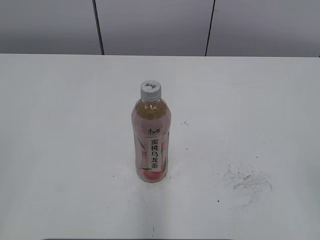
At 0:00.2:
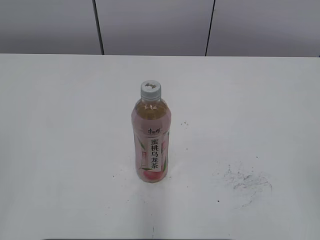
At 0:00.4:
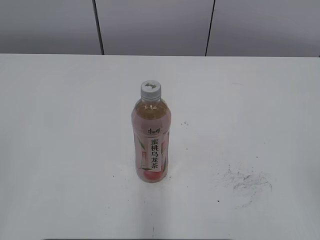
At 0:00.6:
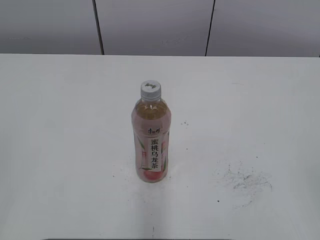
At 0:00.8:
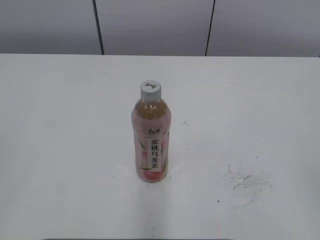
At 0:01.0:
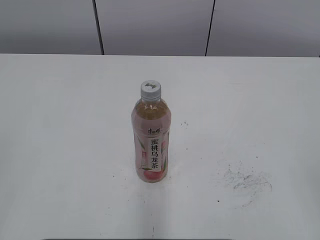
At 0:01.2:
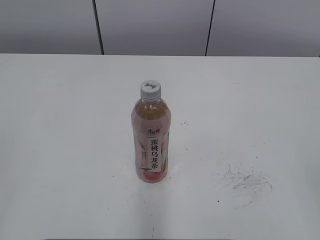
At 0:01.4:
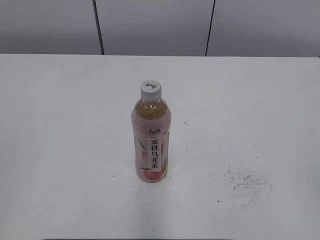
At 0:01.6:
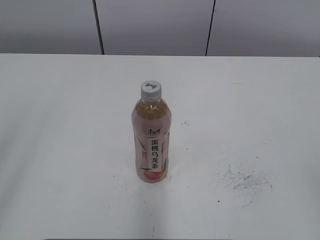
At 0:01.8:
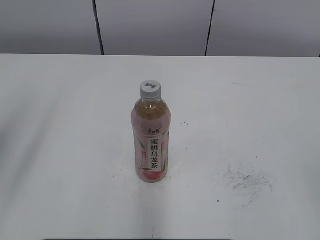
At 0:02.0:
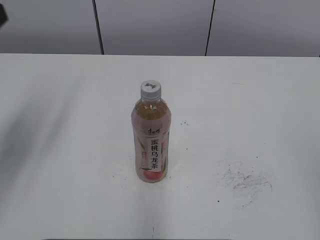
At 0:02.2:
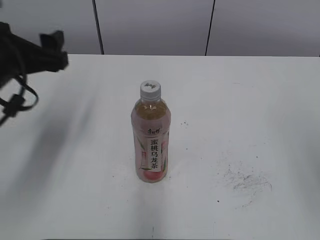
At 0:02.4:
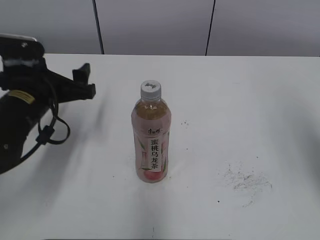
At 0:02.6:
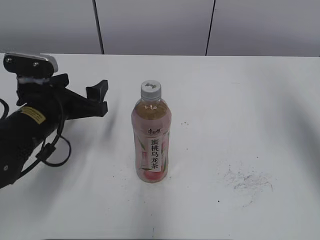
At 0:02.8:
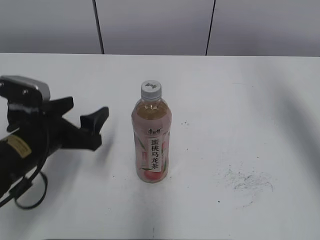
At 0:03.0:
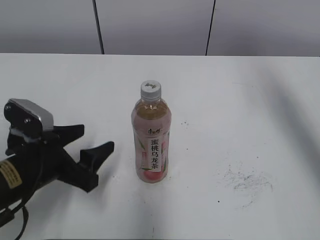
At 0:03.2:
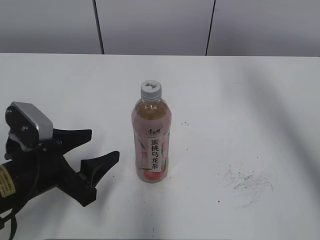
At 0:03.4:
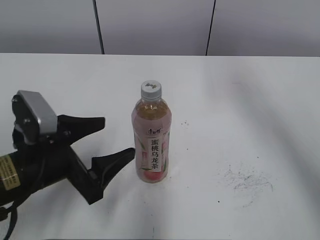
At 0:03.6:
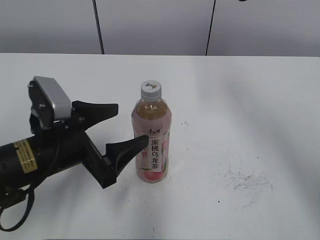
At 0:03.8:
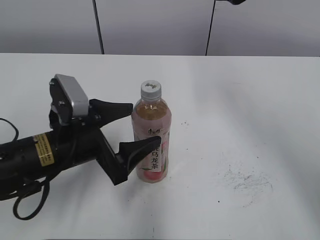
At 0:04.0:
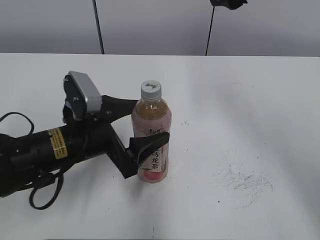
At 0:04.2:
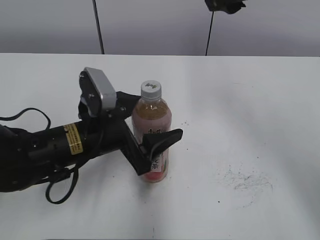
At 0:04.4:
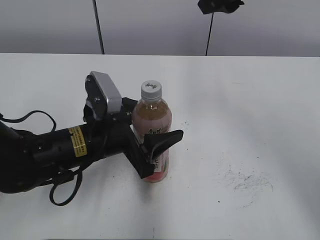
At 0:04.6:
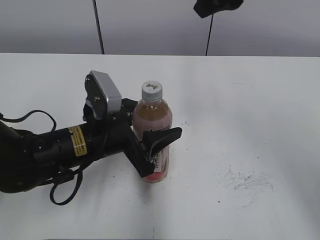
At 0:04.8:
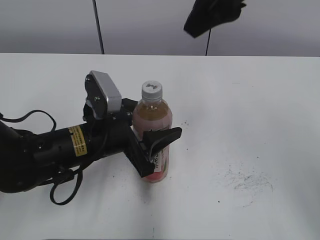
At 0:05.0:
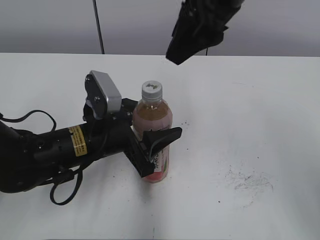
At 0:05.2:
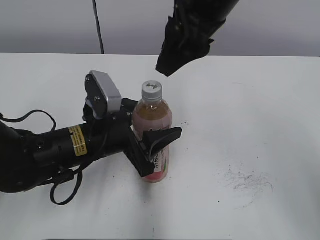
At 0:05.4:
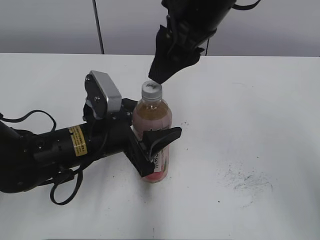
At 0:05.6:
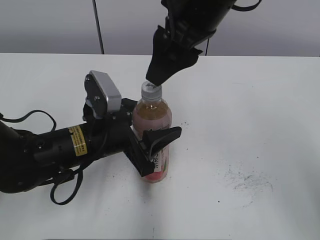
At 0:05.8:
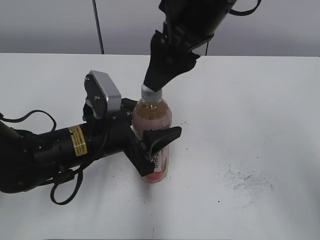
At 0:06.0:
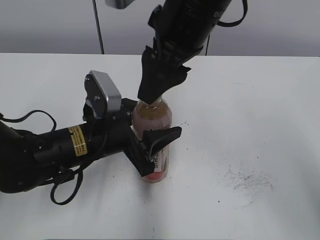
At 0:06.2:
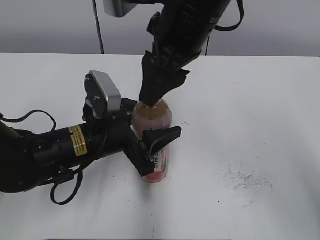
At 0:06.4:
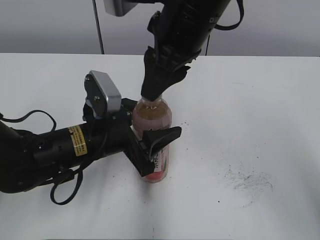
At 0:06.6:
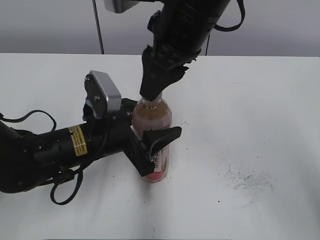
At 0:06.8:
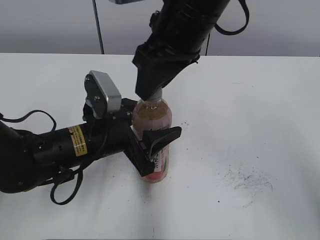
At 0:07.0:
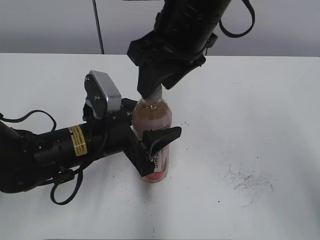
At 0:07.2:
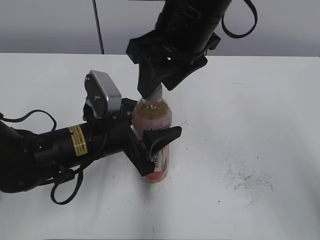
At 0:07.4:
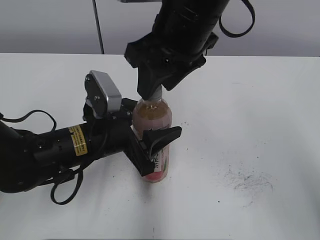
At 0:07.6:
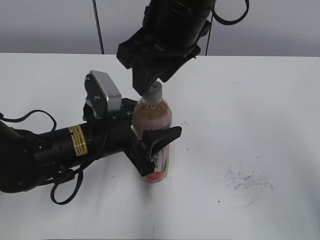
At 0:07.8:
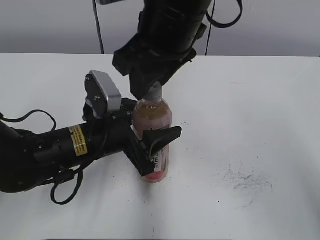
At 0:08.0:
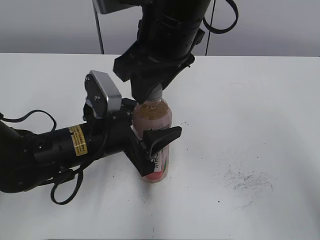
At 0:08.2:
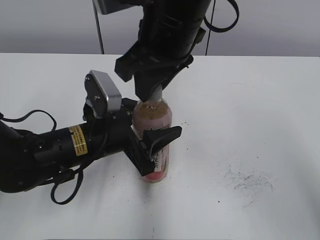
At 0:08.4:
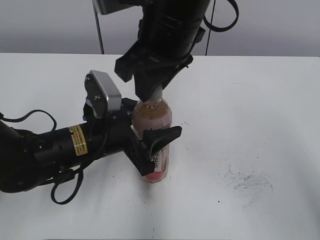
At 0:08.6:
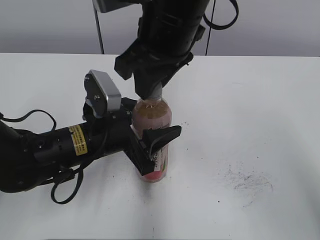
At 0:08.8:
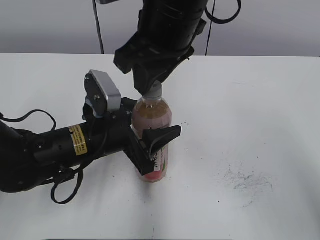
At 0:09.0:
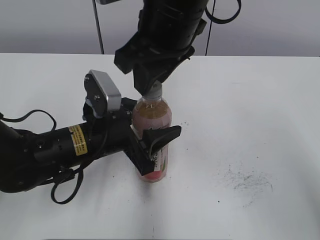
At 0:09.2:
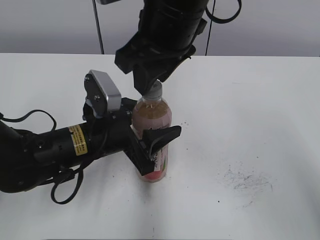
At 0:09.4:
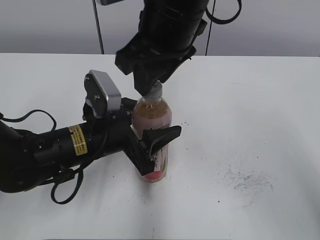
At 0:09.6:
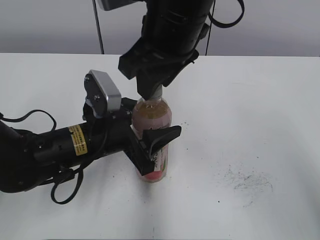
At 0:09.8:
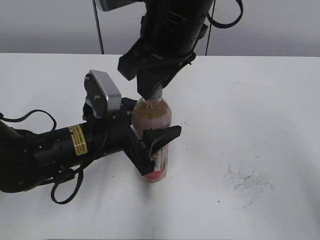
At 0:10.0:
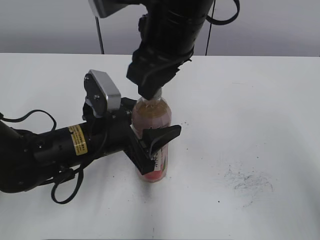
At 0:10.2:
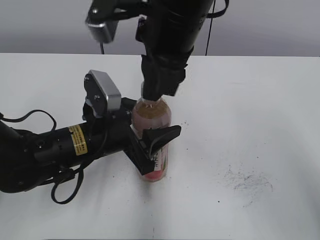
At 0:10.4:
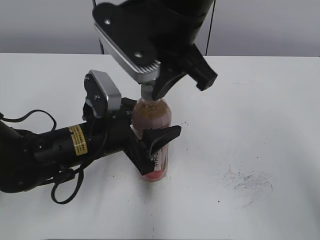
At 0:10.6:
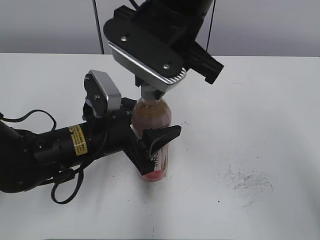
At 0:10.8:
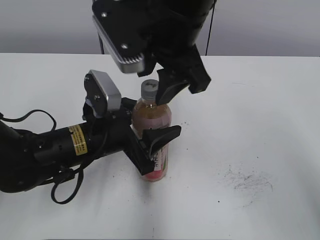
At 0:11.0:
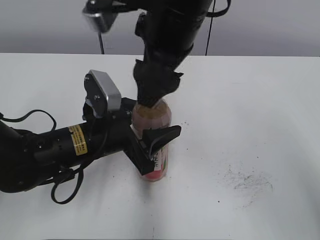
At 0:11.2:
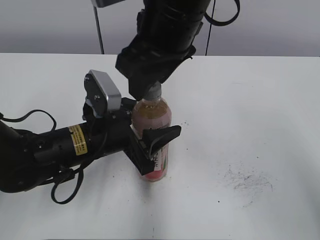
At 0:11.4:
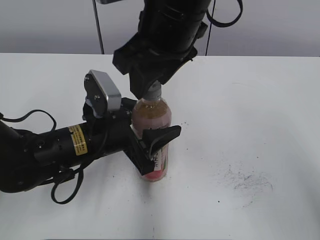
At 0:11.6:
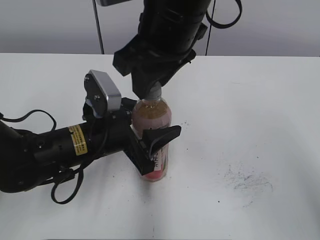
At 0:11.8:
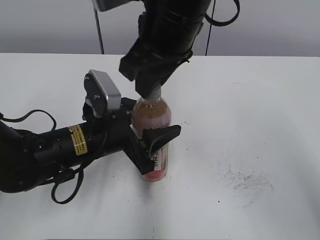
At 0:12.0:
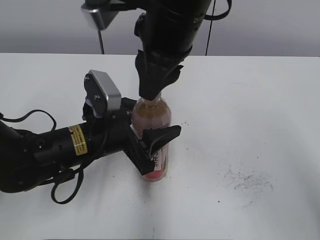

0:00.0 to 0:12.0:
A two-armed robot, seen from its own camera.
Step, 0:00.0 to 0:04.4: Grab the Peach Oolong Tea with the left hand.
0:01.6 to 0:03.0: The left gripper moves downward, forward and to the right, about 30 cm, and opens up, while the right gripper goes about 35 cm forward, and opens its fingers.
0:03.0 to 0:04.4: The left gripper heads to the right, covering about 10 cm; the right gripper moves to the left, roughly 15 cm.
0:04.4 to 0:06.0: The right gripper travels to the left and backward by about 10 cm.
0:06.0 to 0:07.6: The right gripper closes, then opens again.
0:07.6 to 0:09.0: The grippers move only a little.
0:10.4 to 0:12.0: The right gripper opens and closes again.

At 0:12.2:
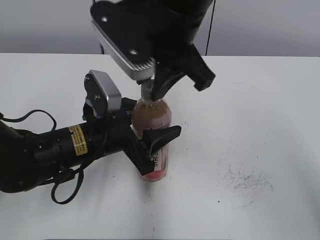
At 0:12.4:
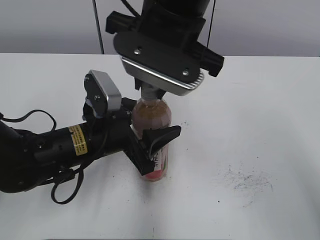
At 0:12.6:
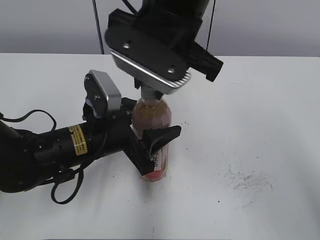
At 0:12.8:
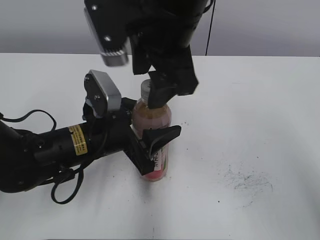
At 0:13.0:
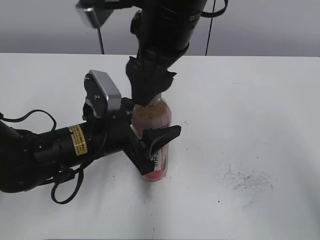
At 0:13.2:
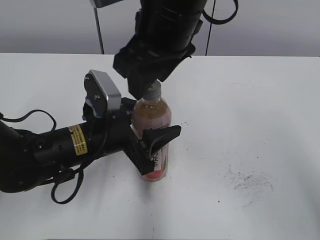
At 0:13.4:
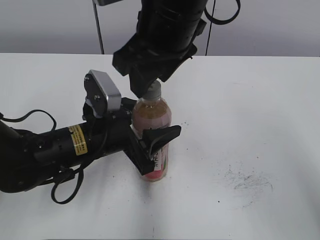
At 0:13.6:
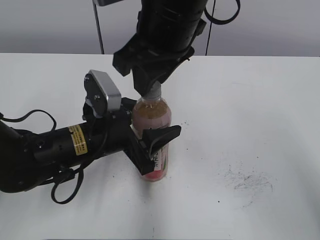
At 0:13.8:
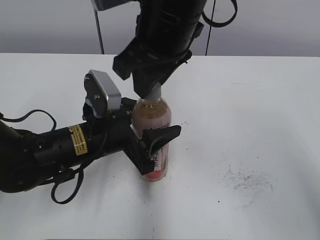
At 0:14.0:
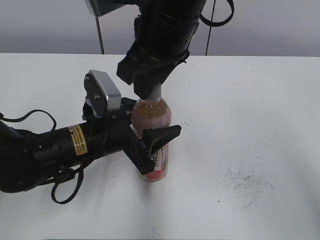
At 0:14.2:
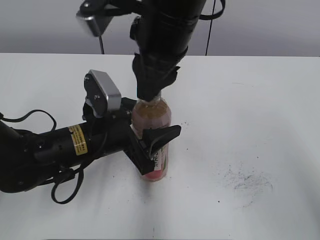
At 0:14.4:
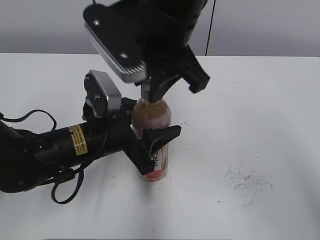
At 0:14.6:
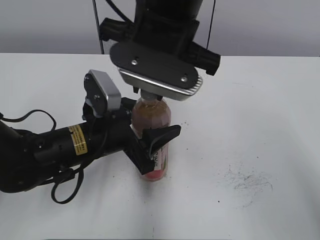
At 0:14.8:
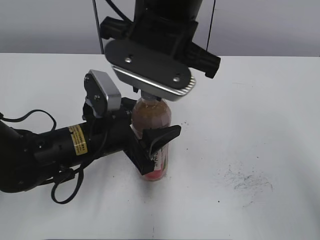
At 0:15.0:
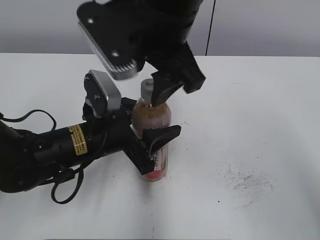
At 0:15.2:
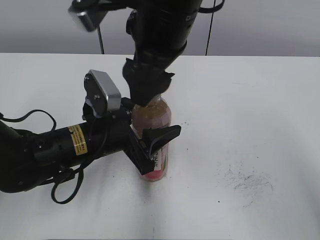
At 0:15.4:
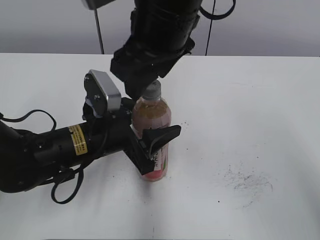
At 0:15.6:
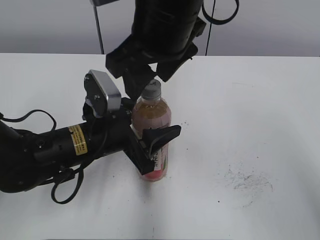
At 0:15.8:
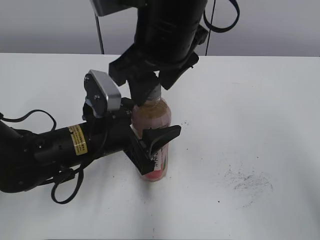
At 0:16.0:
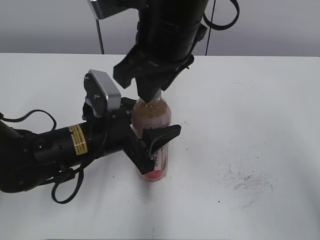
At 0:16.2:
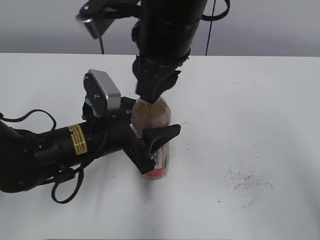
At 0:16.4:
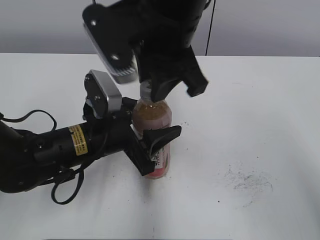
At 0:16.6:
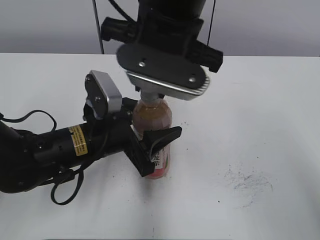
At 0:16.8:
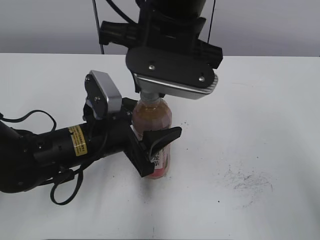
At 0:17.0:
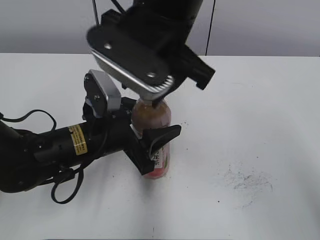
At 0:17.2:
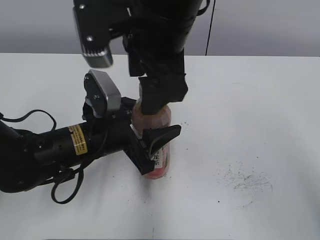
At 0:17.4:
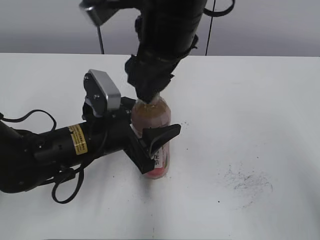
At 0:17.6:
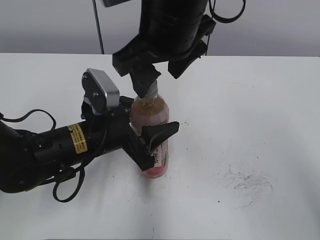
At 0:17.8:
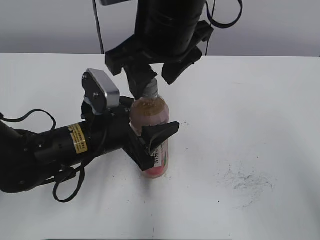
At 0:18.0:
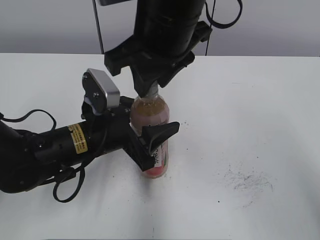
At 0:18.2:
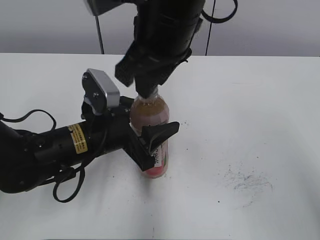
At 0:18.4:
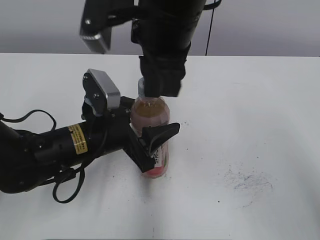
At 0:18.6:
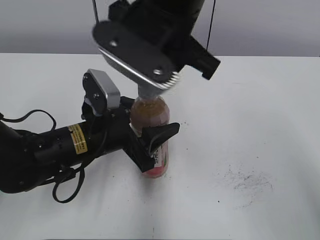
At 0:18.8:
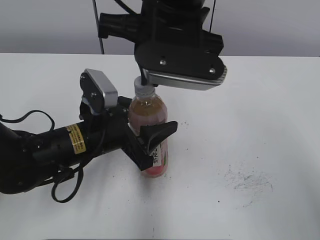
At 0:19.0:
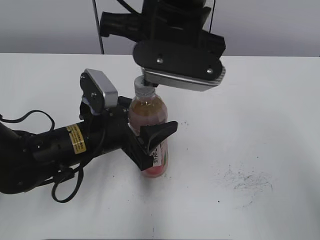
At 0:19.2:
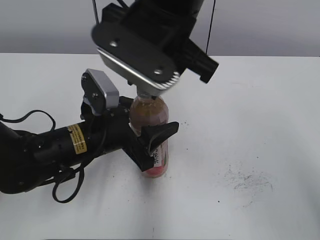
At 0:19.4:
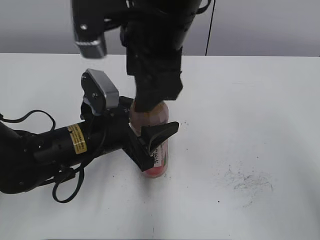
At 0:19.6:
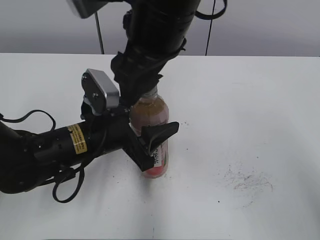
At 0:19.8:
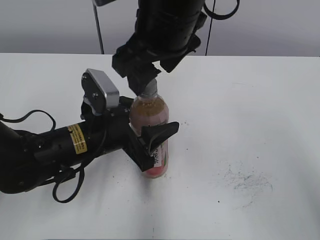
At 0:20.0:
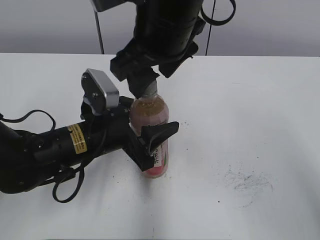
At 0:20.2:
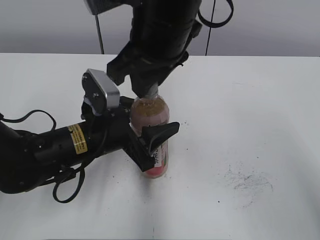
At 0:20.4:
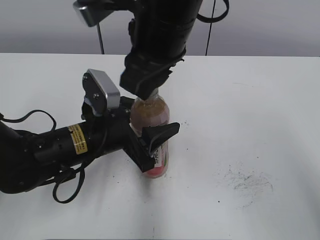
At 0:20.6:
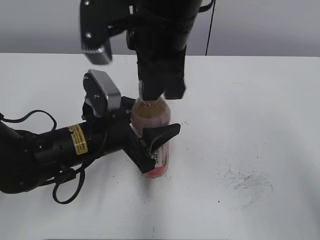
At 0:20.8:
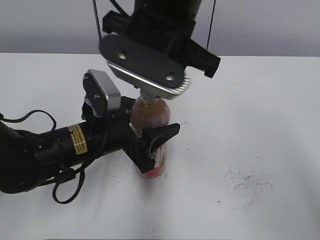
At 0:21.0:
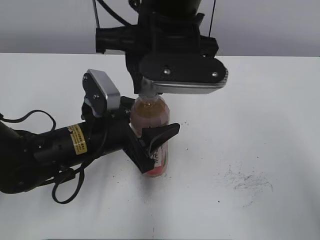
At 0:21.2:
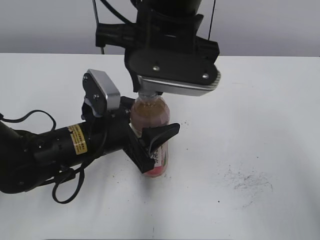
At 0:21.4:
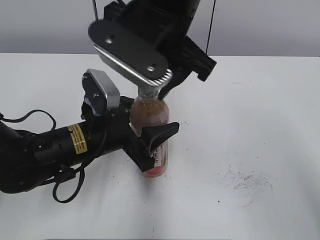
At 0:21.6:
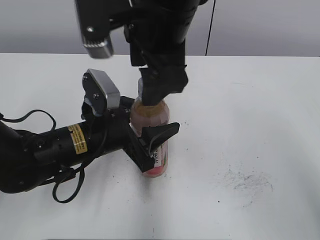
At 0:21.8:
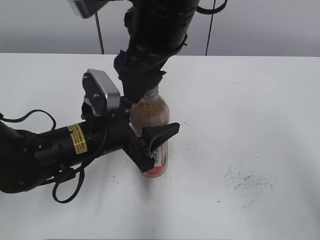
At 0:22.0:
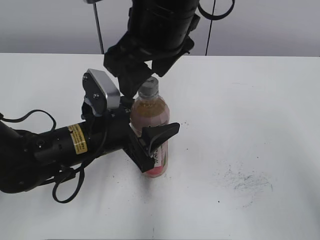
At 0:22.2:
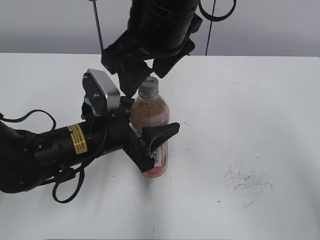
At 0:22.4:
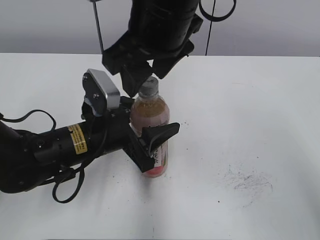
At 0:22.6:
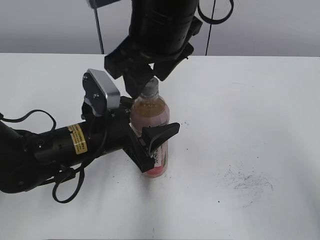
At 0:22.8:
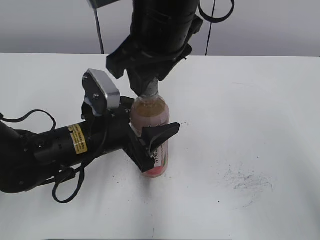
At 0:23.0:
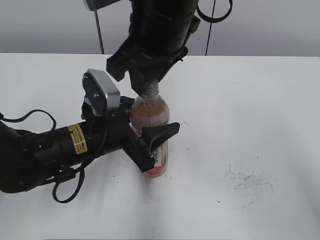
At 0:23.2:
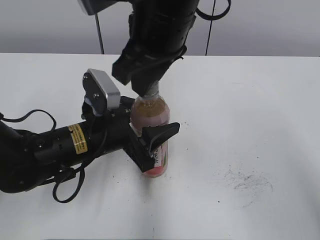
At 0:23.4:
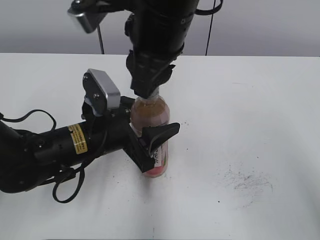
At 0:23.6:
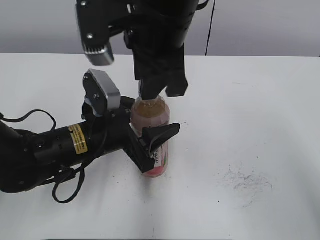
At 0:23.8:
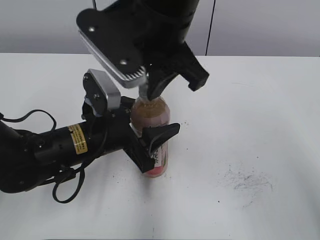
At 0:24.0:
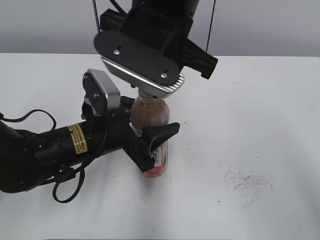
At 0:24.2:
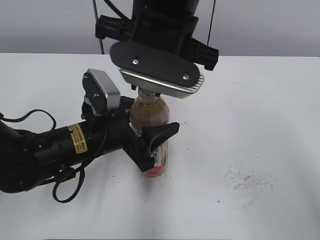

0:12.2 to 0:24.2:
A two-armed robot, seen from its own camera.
0:12.2 to 0:13.8: The right gripper opens, then closes again.
0:13.8 to 0:15.2: The right gripper opens its fingers.
0:15.2 to 0:16.6: The right gripper closes.
0:16.6 to 0:18.2: The right gripper opens, then closes again.
0:18.2 to 0:19.8: The right gripper opens its fingers.
0:19.8 to 0:21.2: The right gripper closes.
0:21.2 to 0:22.6: The right gripper opens its fingers.
0:22.6 to 0:24.2: The right gripper closes up.
